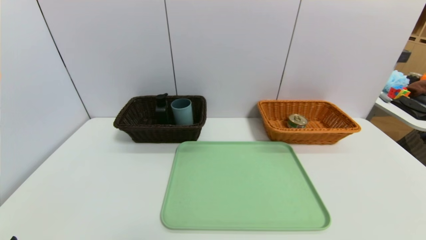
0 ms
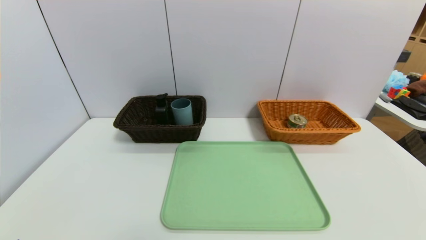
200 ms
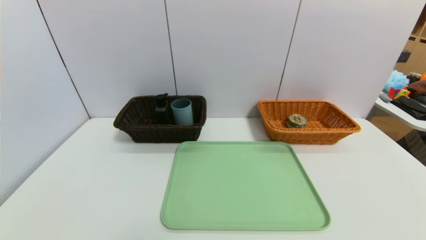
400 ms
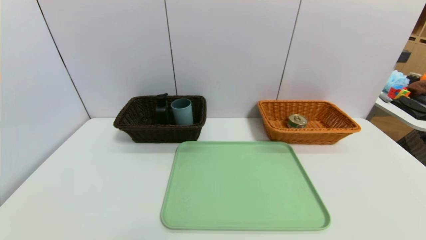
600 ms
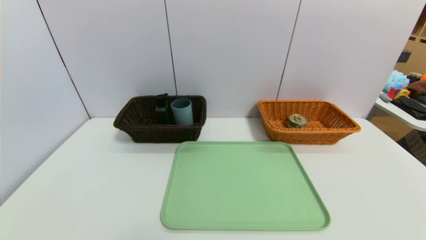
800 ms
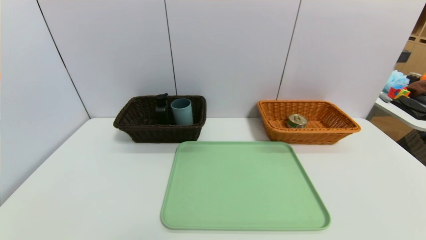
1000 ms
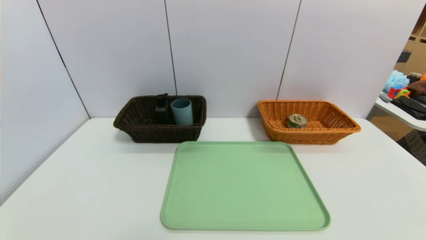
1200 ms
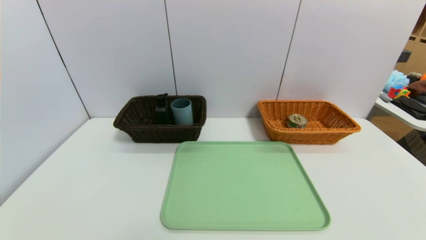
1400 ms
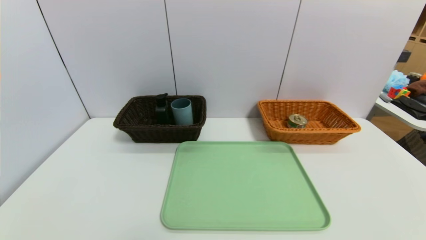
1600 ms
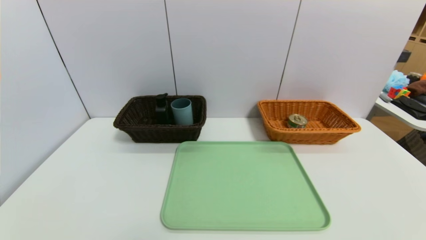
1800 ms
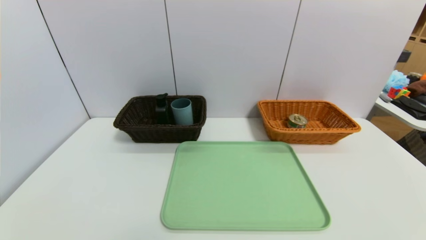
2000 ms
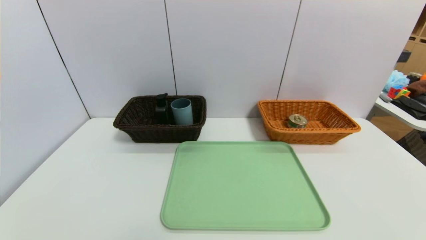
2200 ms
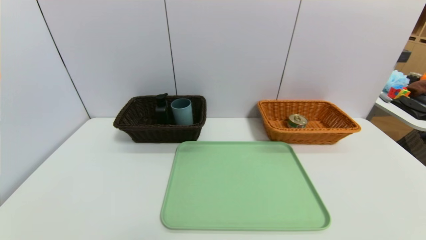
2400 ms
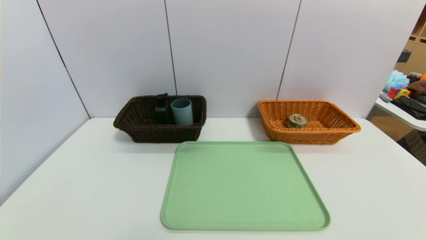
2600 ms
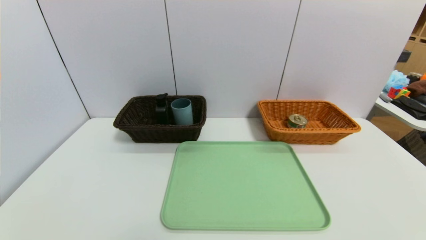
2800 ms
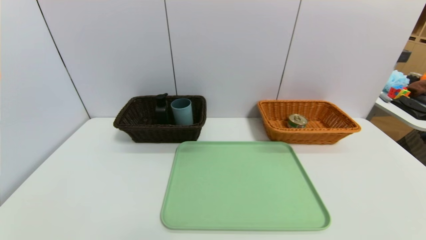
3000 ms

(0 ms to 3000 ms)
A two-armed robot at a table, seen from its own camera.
Task of the whole recording: place the food in the right basket with the right gripper, and place the non food items in the left basket with the left gripper.
1600 ms - 3000 ms: Both grippers stay about where they are.
